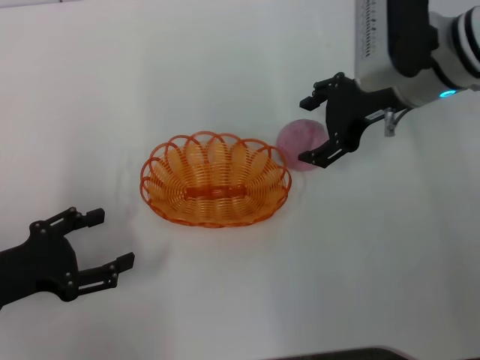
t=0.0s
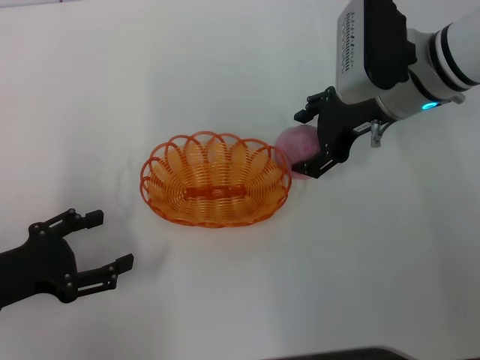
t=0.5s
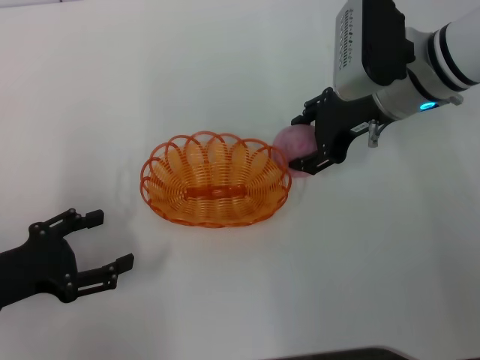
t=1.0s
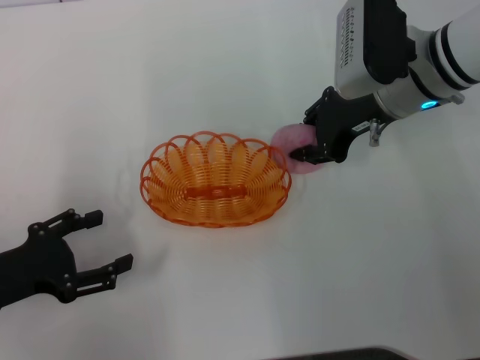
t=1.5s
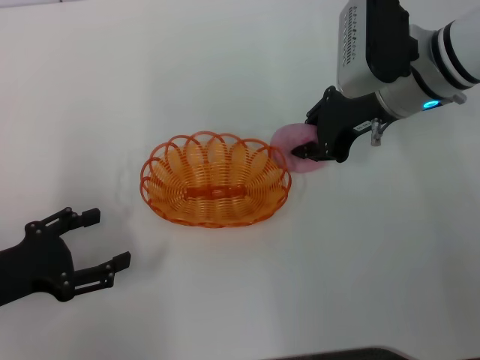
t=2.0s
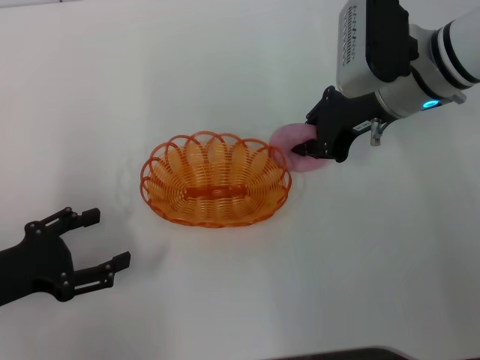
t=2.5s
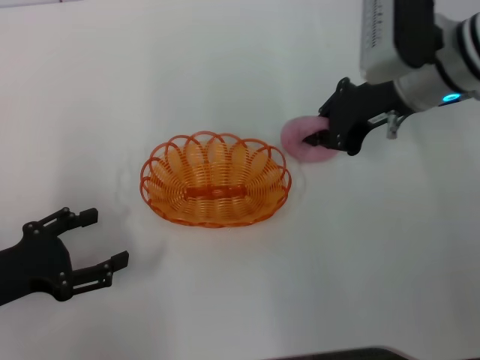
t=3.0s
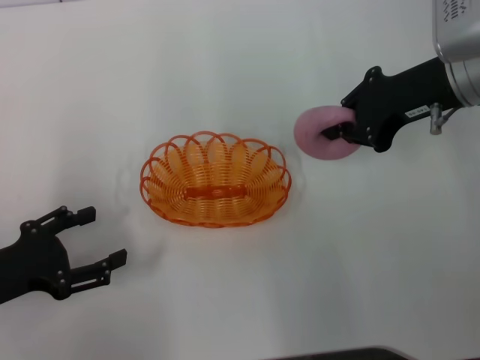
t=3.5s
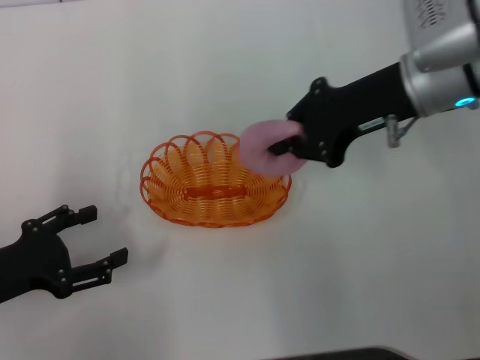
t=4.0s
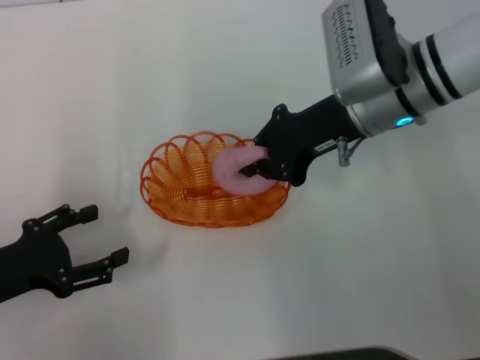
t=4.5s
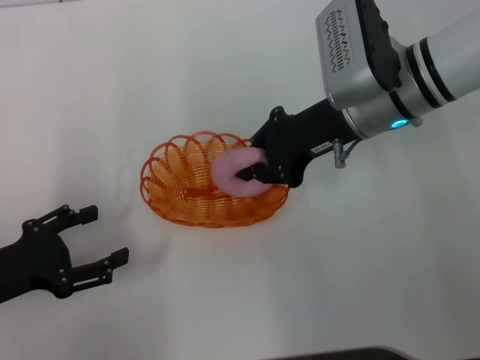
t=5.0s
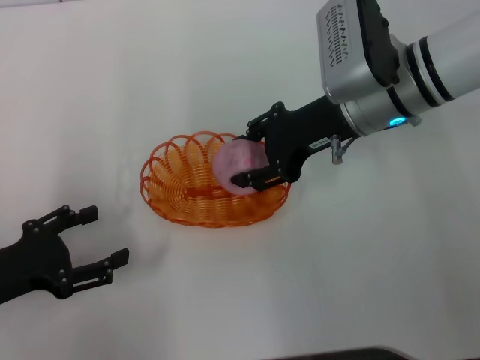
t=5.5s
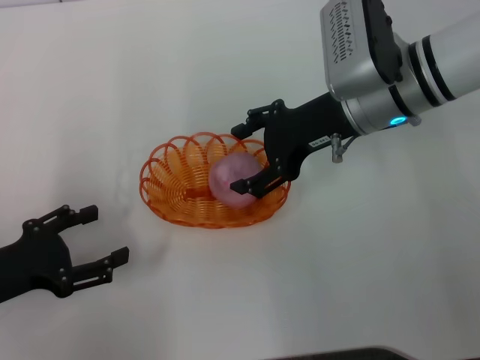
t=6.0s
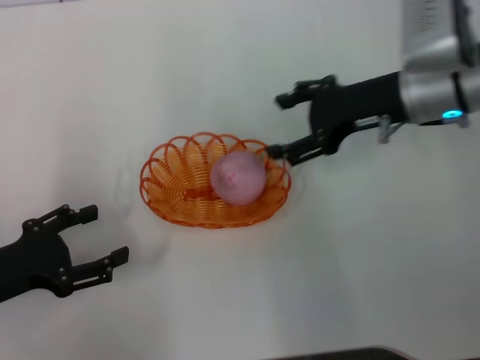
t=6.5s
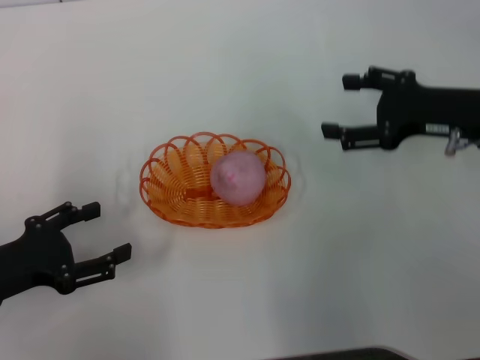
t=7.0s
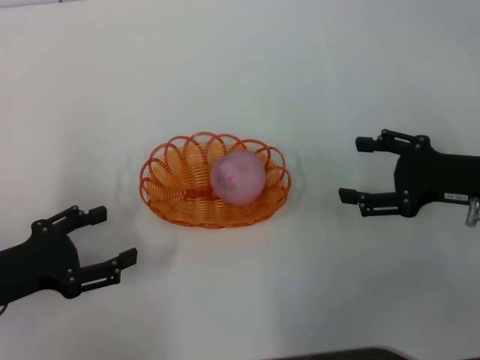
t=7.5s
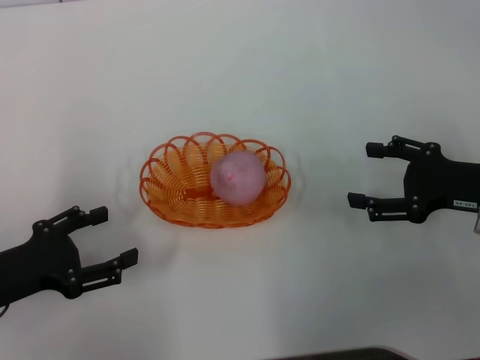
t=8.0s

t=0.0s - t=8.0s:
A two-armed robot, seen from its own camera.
Step, t=0.0s - t=3.0s: Pick up the peach with the right gripper.
Step, t=4.0s - t=6.5s: Place the peach into the basket with the right gripper.
t=0.0s - t=2.0s: The right gripper closes up.
t=4.0s - t=6.0s: The right gripper moves roughly 5 cm, and opens its fingers.
t=6.0s - t=8.0s: The right gripper moves to the right, backward and downward, some 20 cm.
